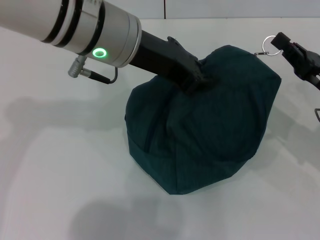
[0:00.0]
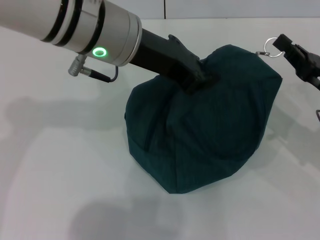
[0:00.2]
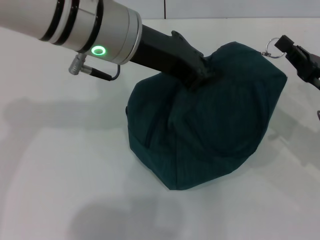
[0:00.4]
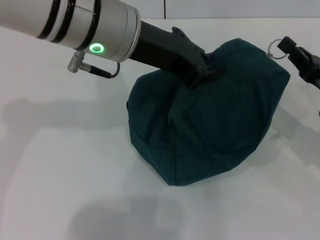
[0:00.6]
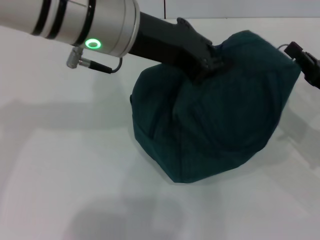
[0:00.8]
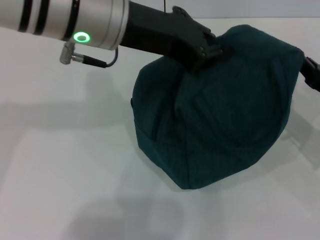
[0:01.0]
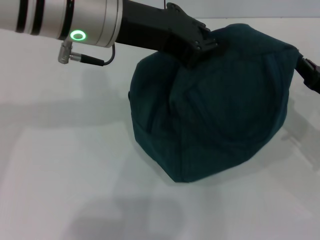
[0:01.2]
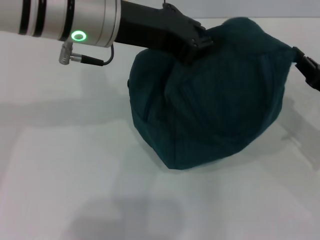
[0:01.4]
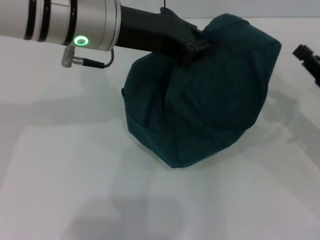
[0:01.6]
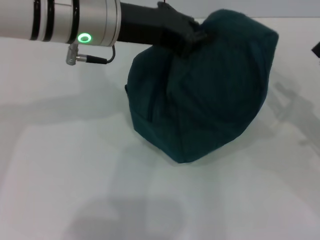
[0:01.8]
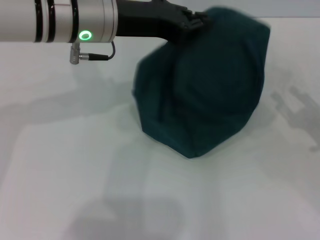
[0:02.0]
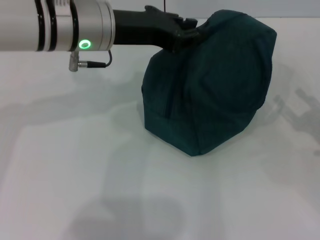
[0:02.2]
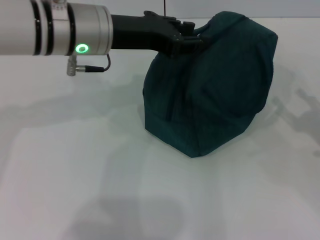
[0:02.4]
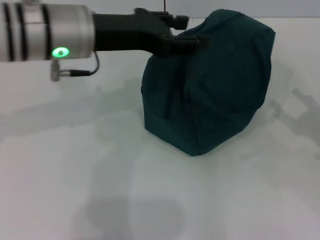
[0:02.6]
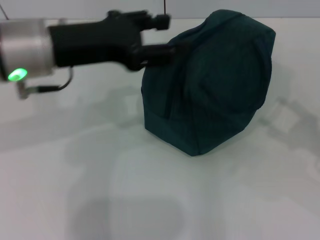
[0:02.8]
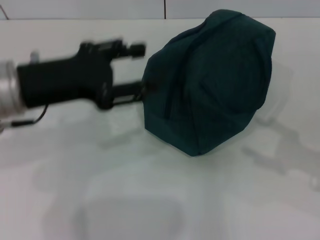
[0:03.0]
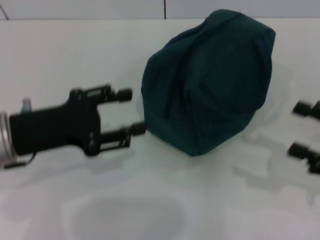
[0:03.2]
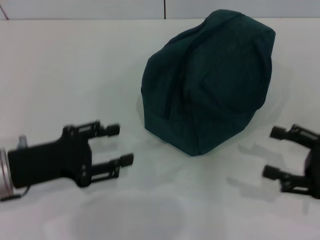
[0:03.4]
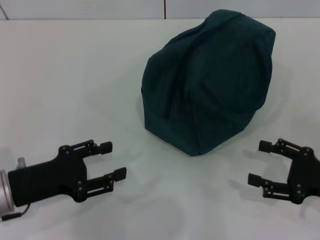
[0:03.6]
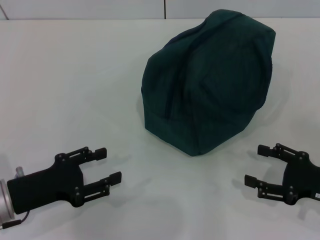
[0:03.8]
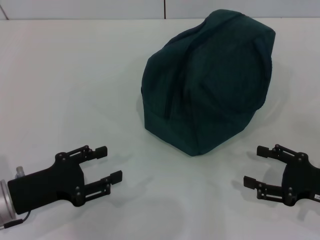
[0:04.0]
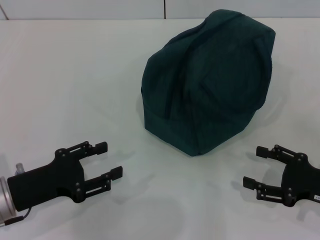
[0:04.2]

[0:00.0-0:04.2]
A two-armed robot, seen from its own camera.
Step, 0:01.6 to 0:02.4: Hold the lunch bag with your left hand.
0:00.0 to 0:01.4: The left gripper closes up.
0:01.4 to 0:02.8: The left gripper travels to the left by approximately 5 cm, and opens its fingers; the right gripper moves to the right and backward, about 10 cm, and opens its fingers.
0:02.8 to 0:04.2: The left gripper heads downward, backward and to the left, covering roughly 20 cm; the right gripper shifts approximately 10 cm downward and to the left.
